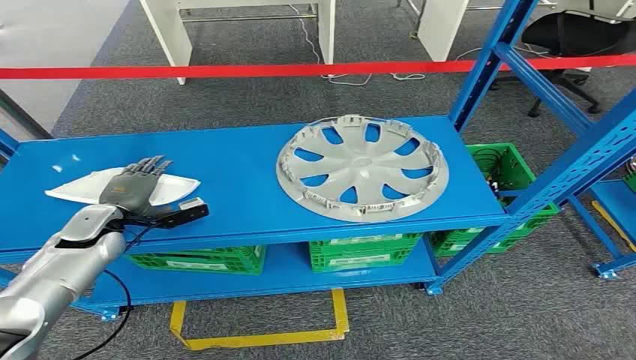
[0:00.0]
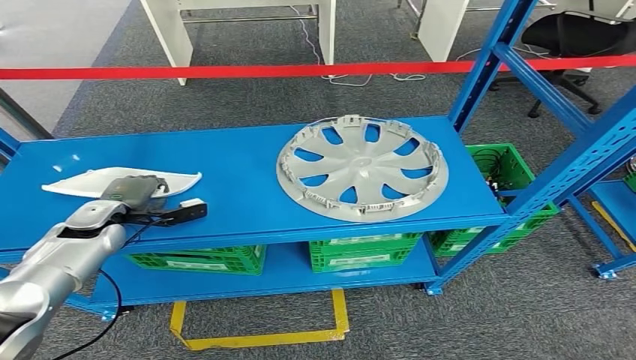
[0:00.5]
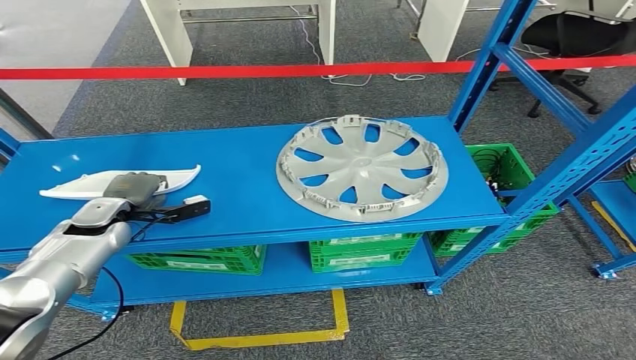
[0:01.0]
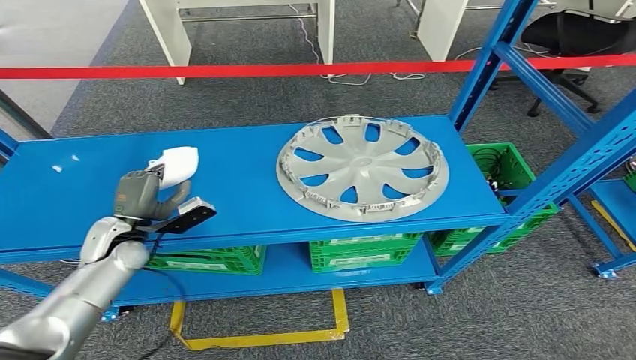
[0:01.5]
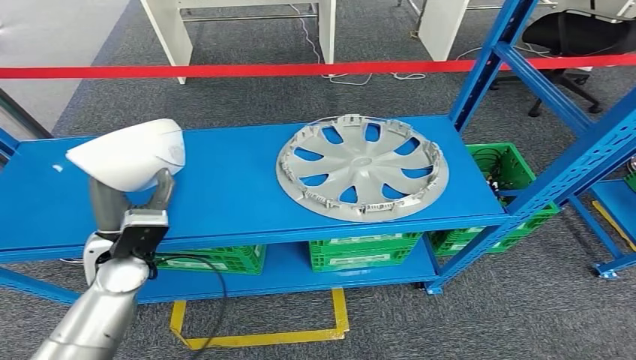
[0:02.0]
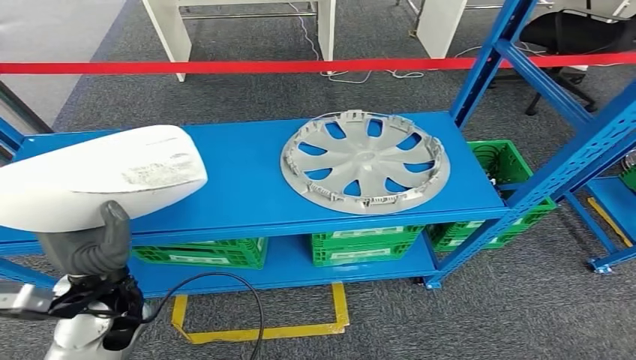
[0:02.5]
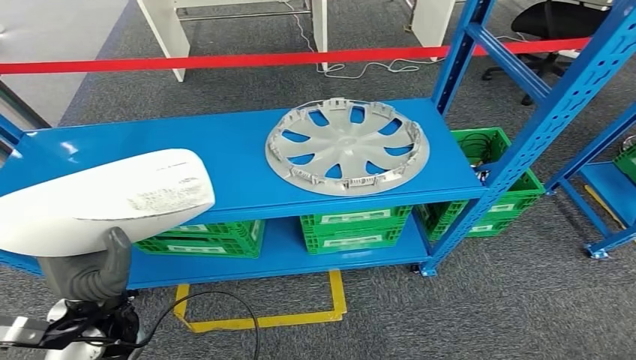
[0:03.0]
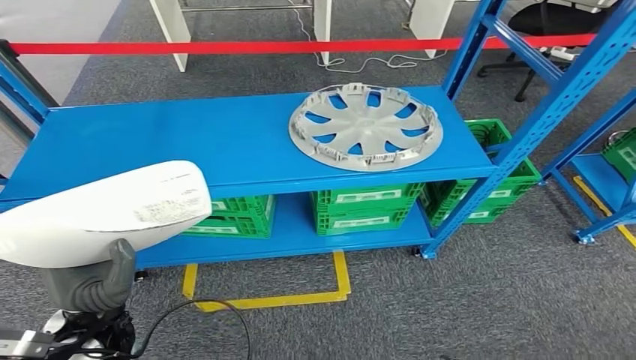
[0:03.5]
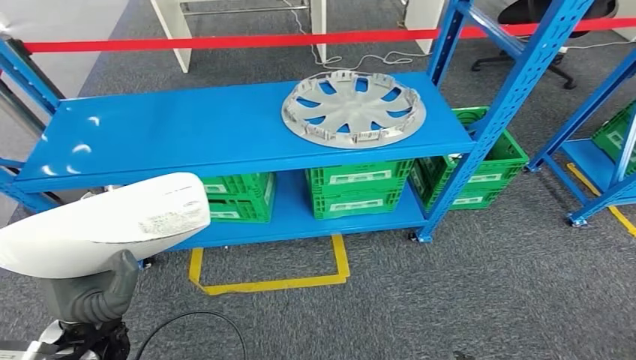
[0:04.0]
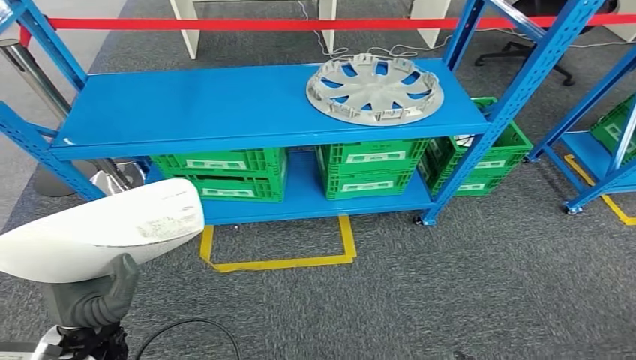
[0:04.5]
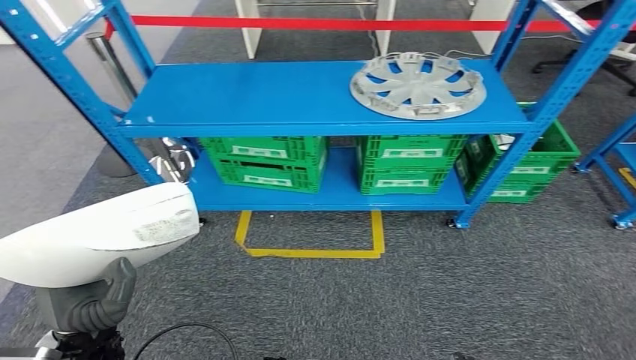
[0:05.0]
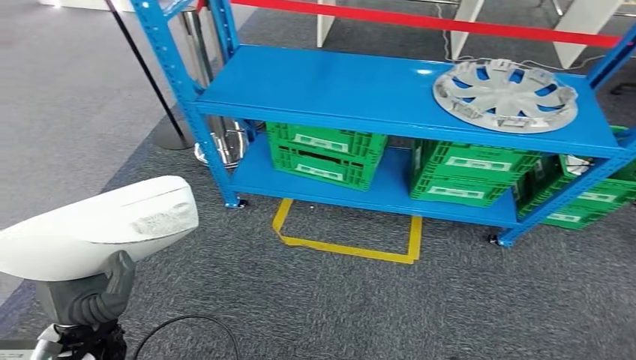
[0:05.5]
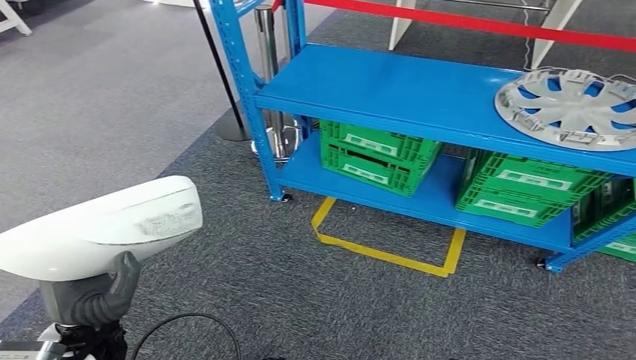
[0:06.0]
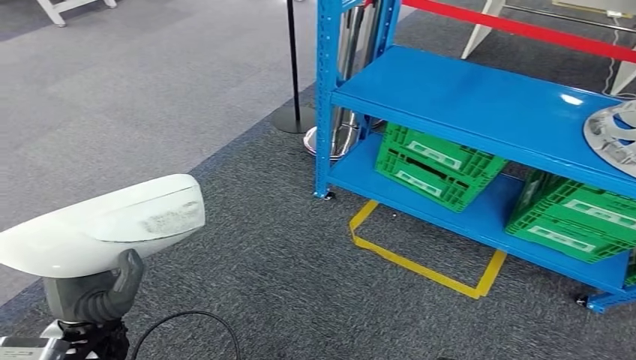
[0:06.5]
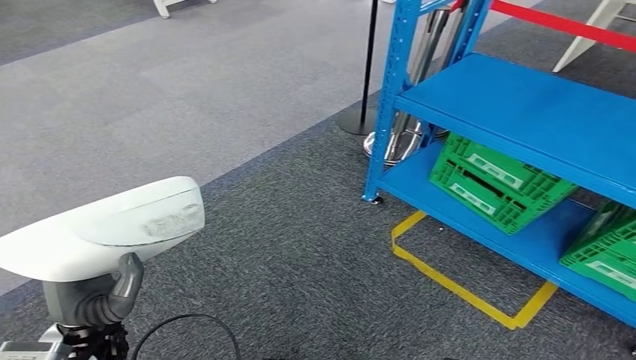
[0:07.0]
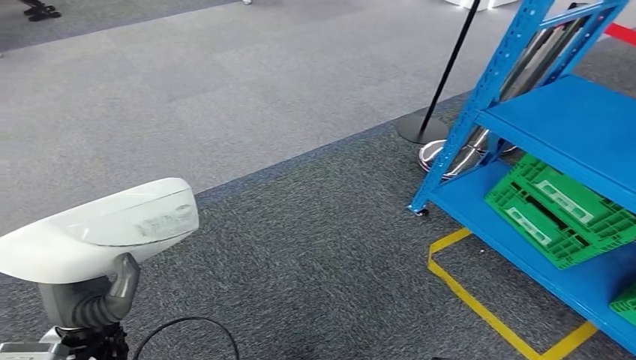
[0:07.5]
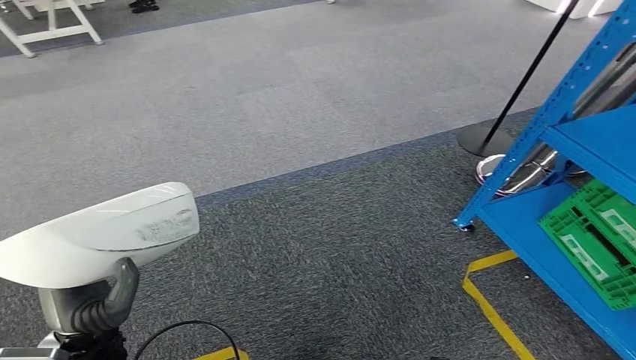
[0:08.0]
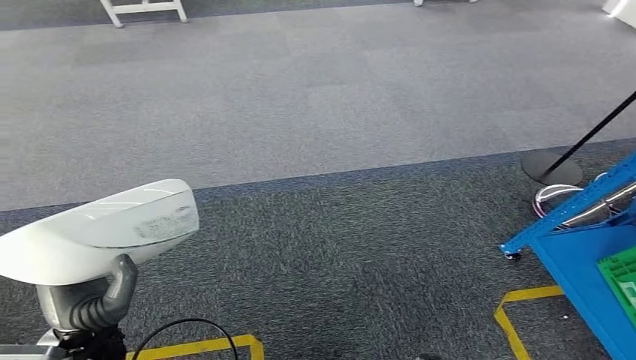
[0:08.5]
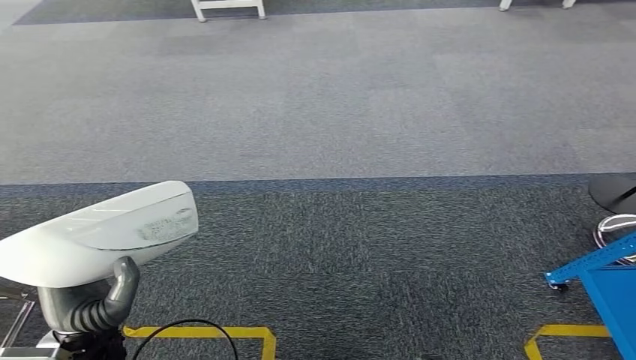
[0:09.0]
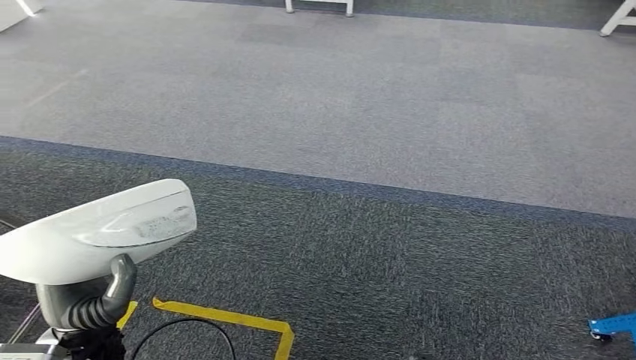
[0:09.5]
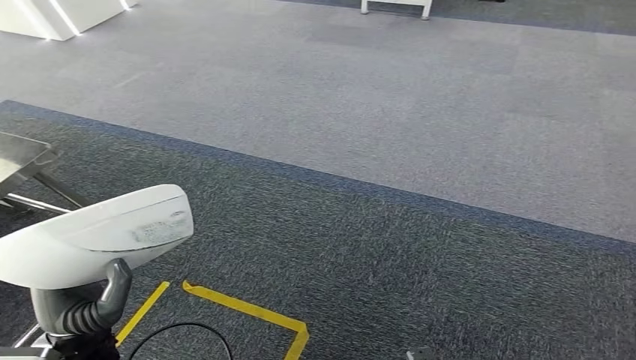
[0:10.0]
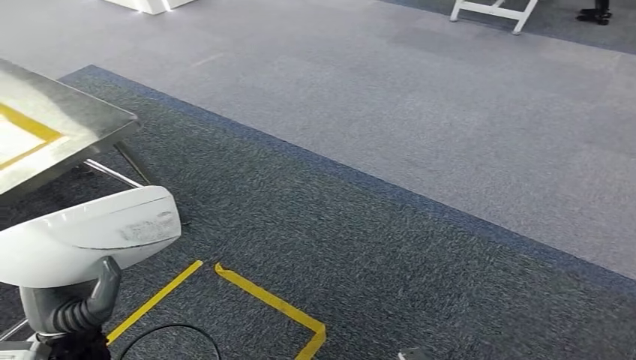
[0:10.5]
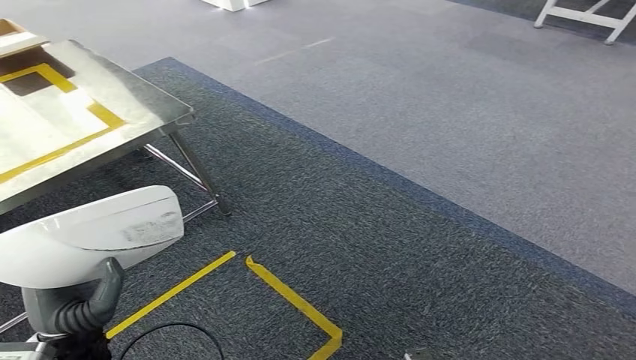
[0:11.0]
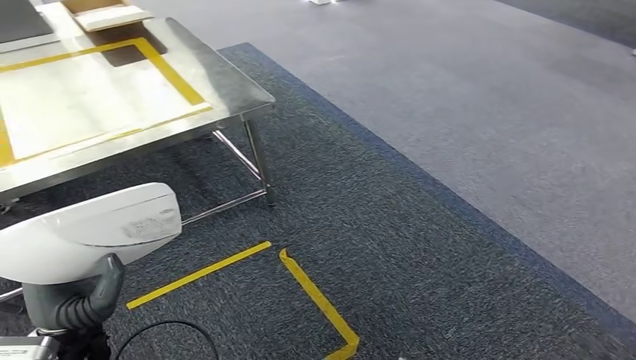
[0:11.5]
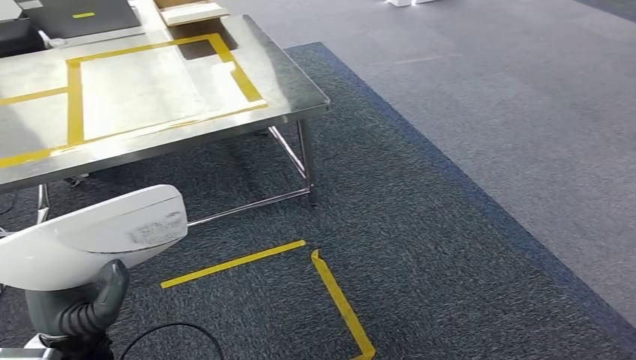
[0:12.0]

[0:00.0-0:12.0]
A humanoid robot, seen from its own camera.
Step, 0:00.0 to 0:03.0: Pick up the small component from the shelf.

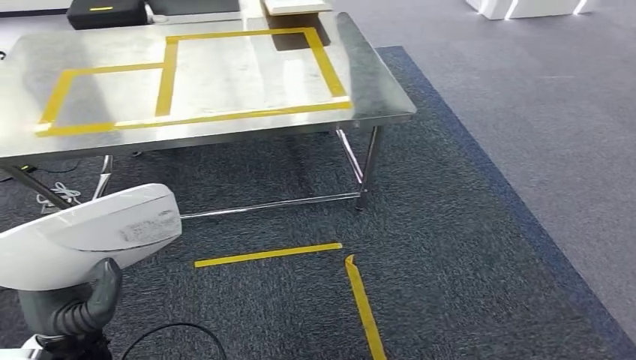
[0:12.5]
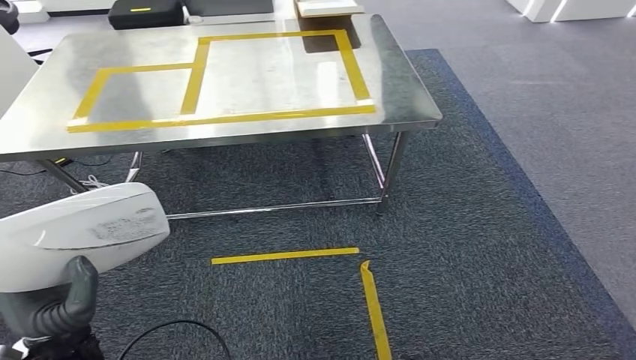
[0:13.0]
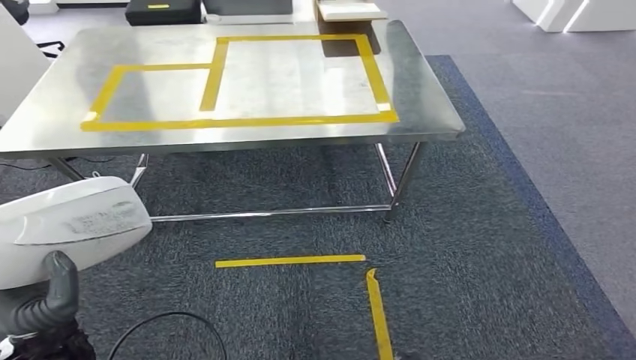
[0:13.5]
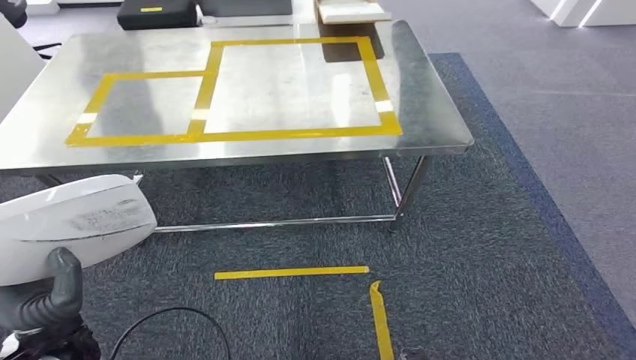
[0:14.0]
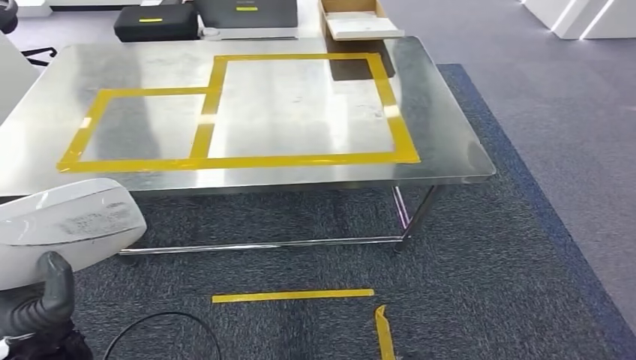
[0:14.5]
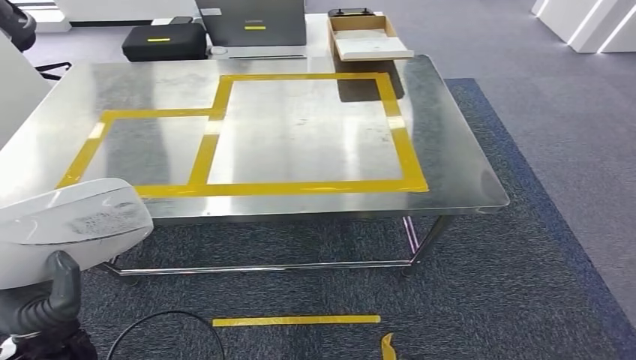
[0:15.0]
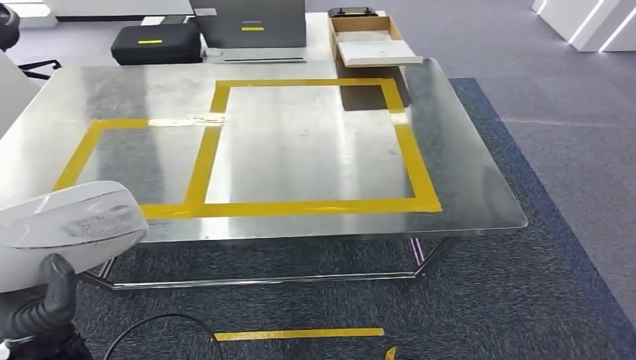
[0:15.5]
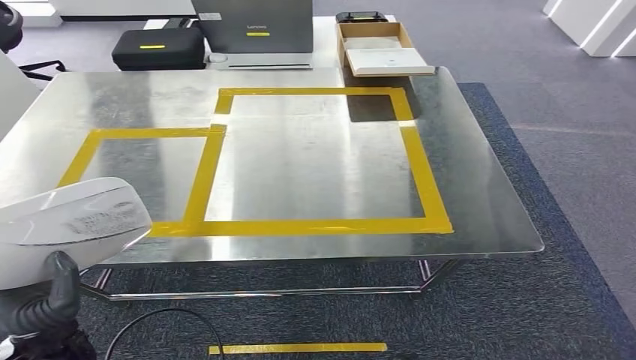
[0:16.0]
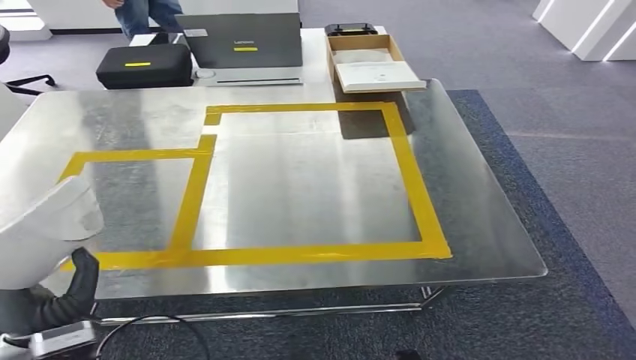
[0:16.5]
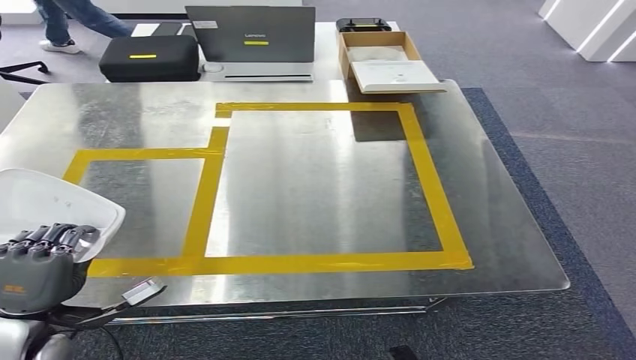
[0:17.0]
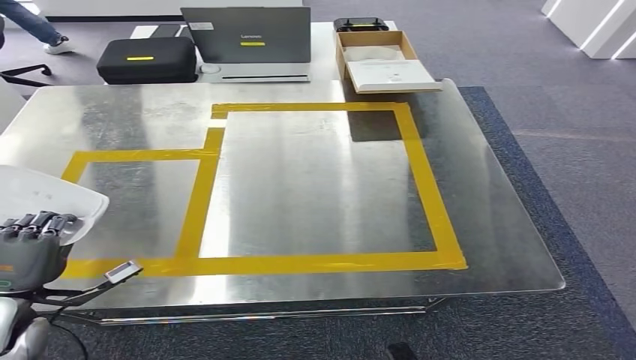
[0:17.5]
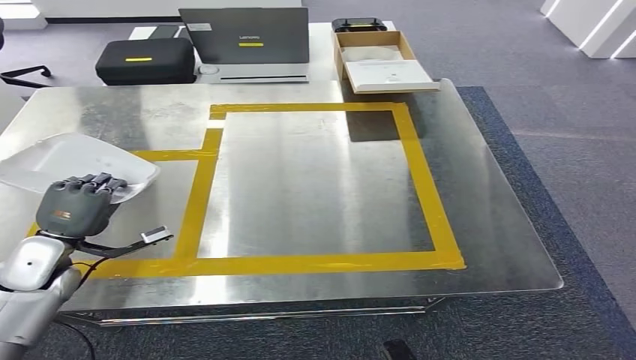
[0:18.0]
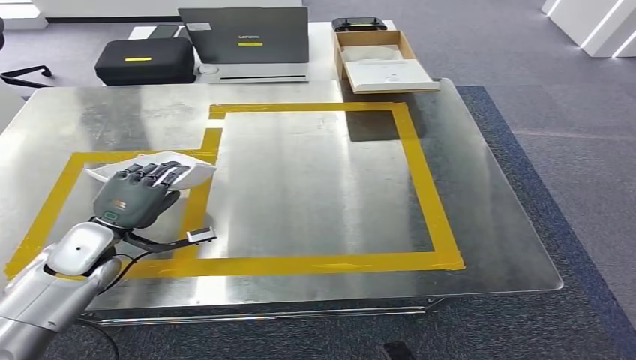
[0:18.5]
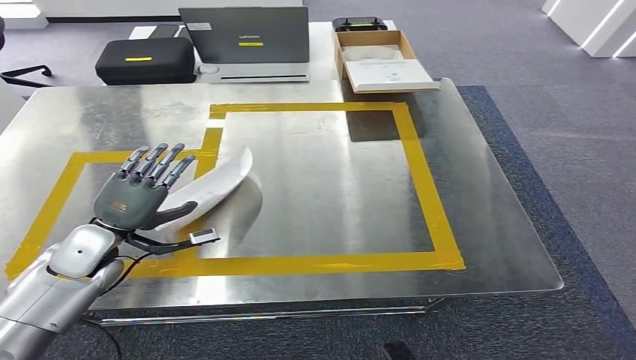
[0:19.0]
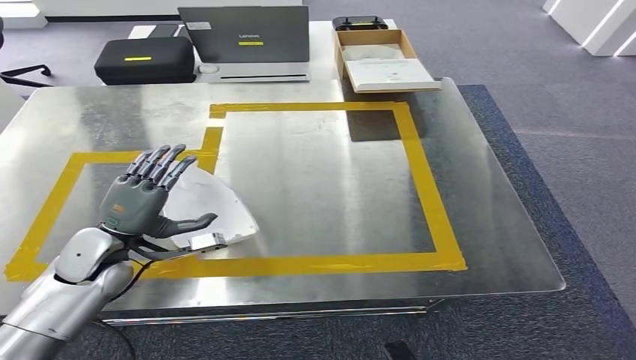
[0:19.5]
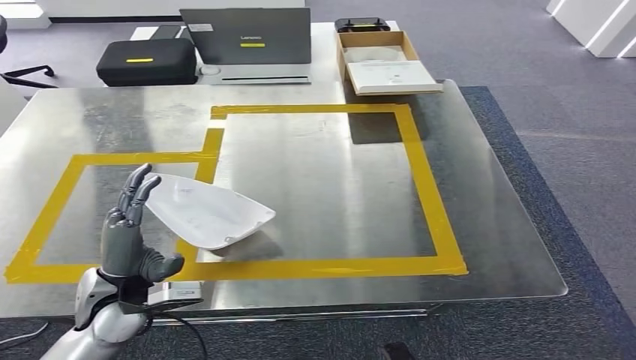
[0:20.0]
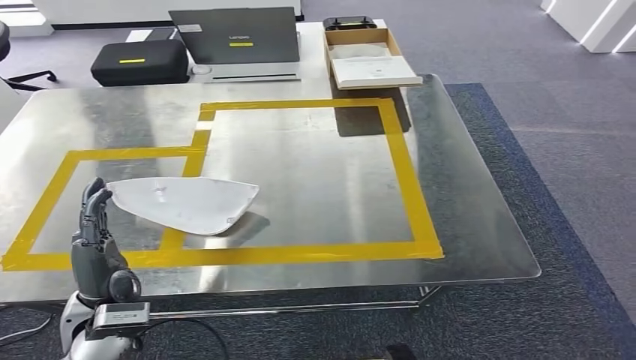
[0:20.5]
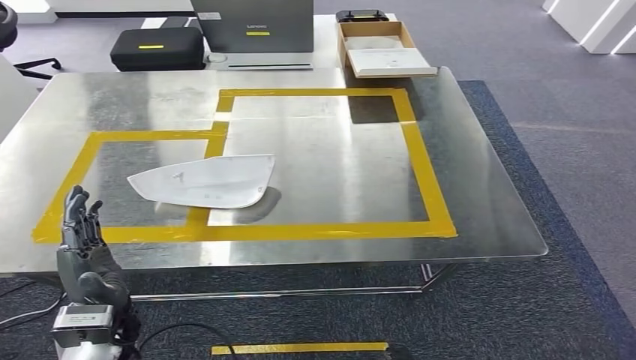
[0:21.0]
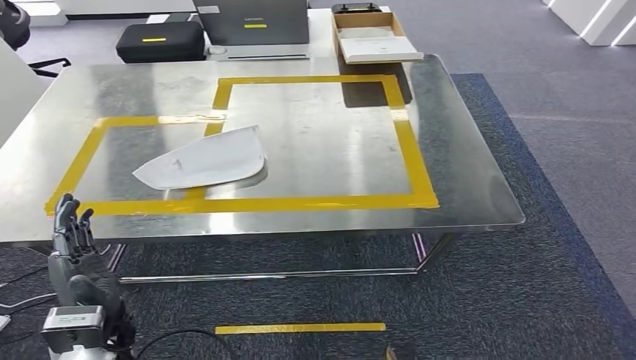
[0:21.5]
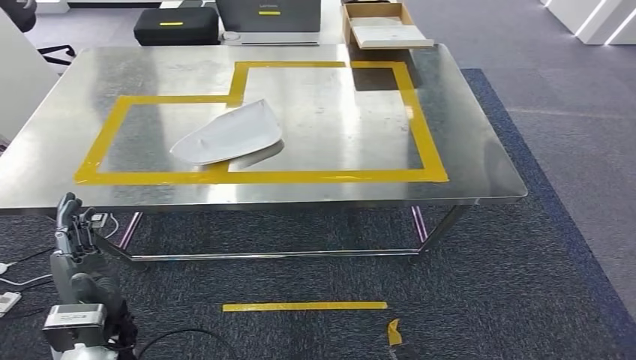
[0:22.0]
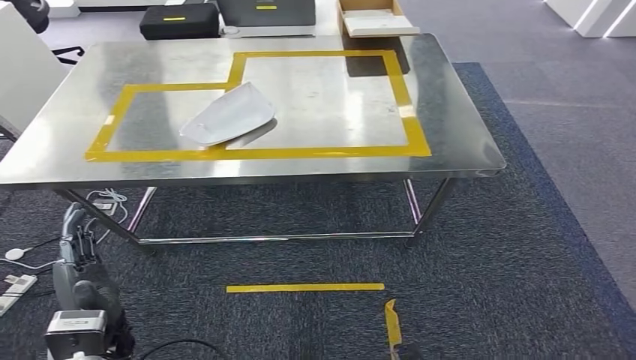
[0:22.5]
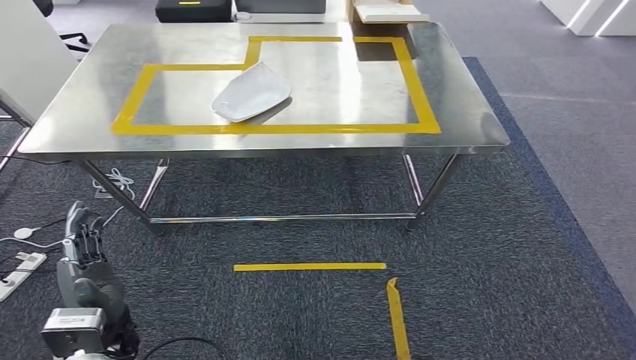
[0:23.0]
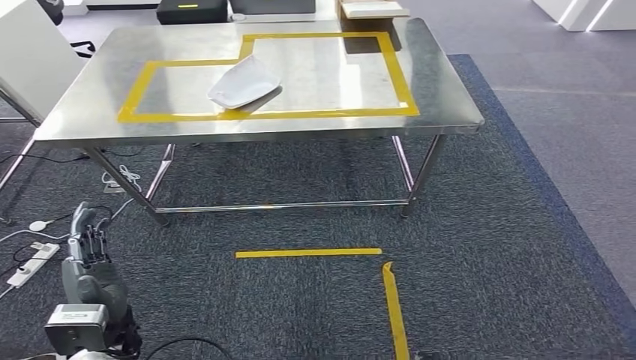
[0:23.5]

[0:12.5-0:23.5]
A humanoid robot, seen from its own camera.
Step, 0:12.5 to 0:14.5: Move the small component to the workbench.
Step, 0:15.0 to 0:20.5: Insert the small component into the corresponding slot on the workbench.
